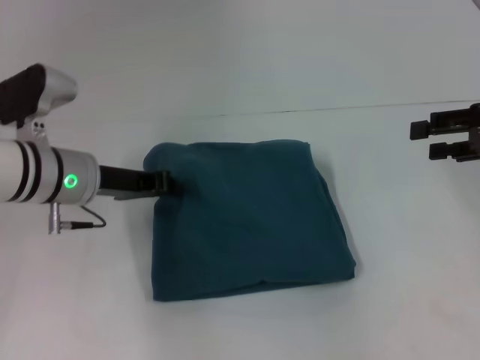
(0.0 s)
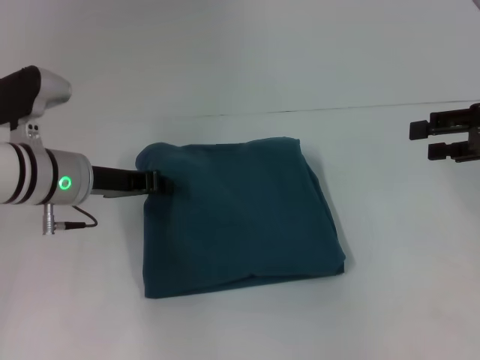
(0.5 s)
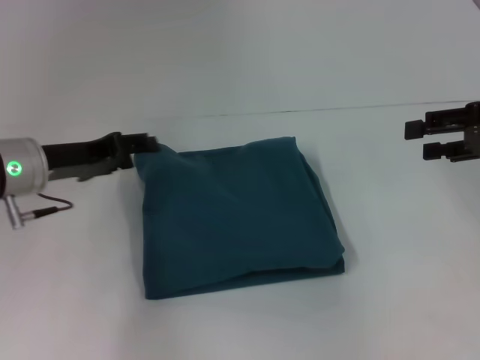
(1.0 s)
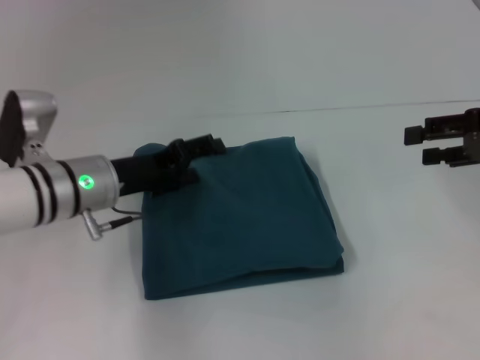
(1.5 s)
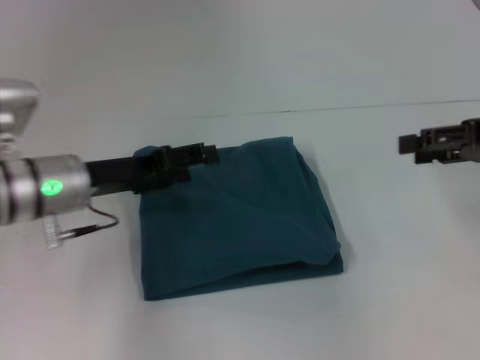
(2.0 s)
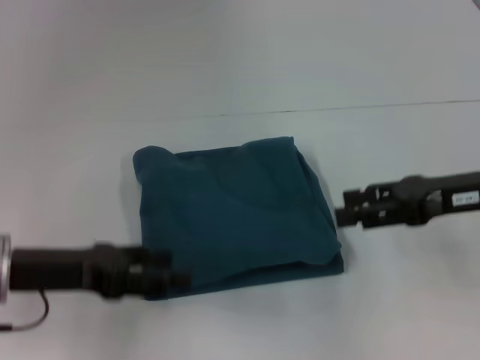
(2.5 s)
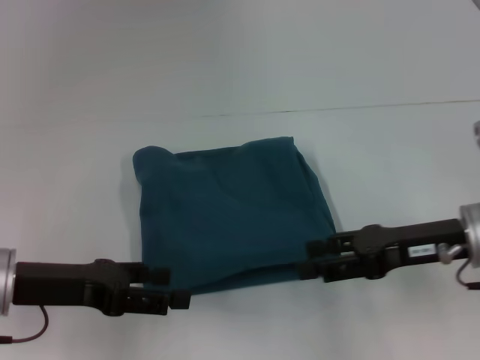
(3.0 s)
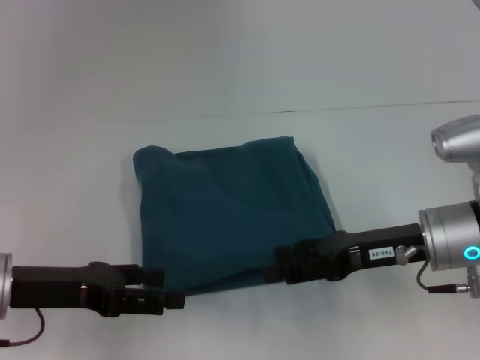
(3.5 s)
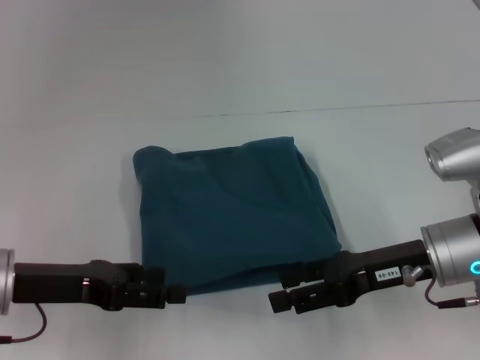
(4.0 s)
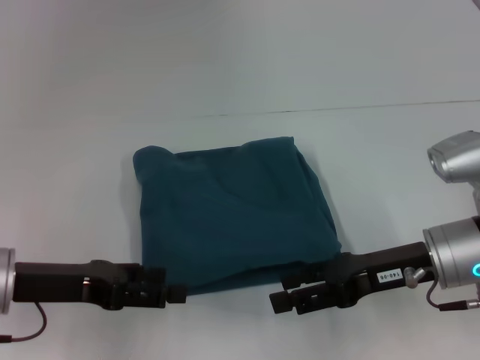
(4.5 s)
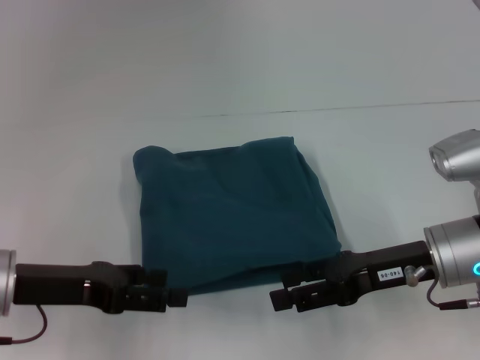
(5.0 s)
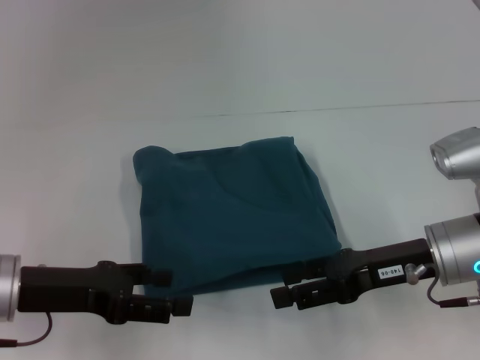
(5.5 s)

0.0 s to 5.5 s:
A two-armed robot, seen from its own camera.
0.0 to 2.0 s: The left gripper opens its fingers.
2.0 to 3.5 s: The left gripper shifts about 10 cm backward and to the left; the right gripper travels to the left and downward by about 15 cm.
3.5 to 5.5 s: The grippers move only a little.
